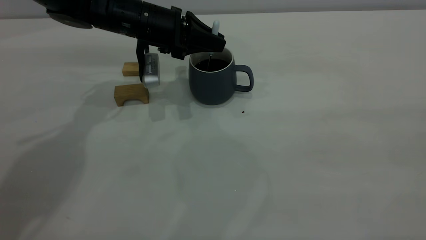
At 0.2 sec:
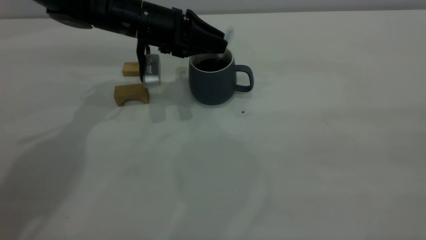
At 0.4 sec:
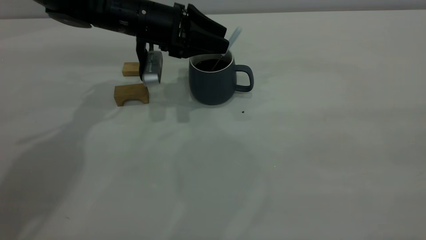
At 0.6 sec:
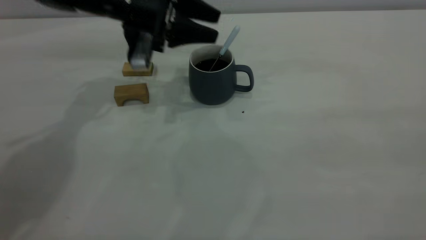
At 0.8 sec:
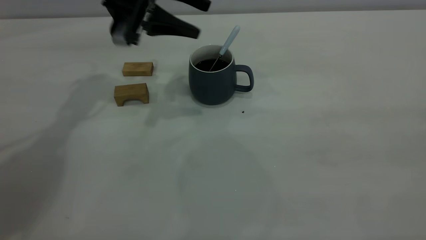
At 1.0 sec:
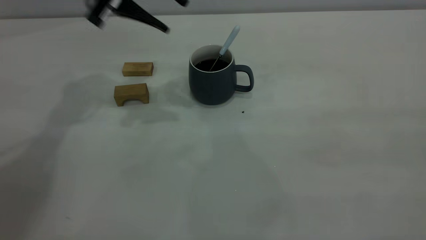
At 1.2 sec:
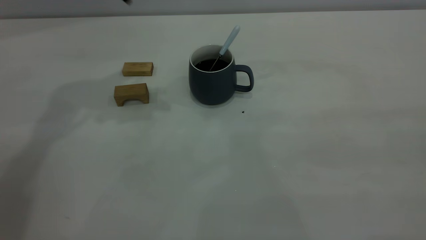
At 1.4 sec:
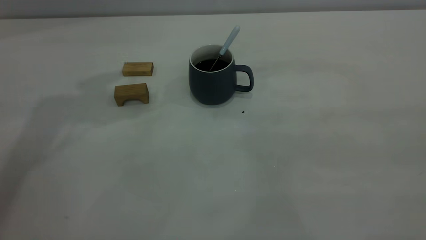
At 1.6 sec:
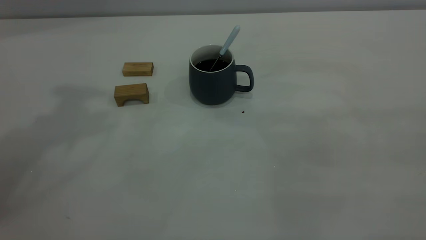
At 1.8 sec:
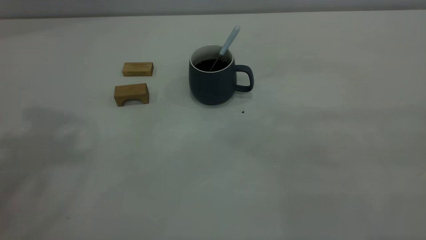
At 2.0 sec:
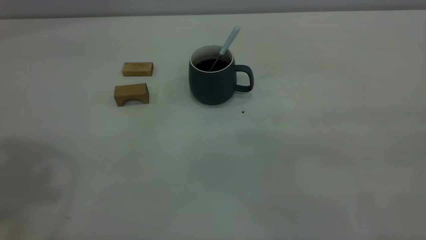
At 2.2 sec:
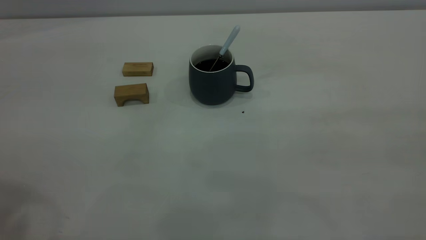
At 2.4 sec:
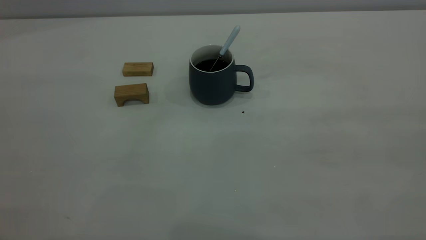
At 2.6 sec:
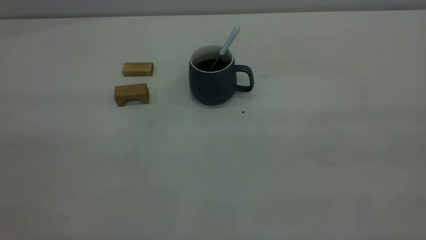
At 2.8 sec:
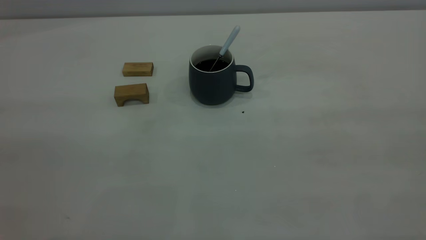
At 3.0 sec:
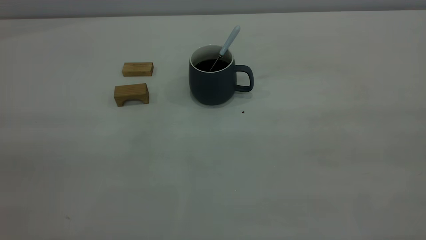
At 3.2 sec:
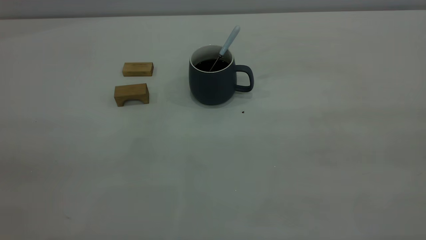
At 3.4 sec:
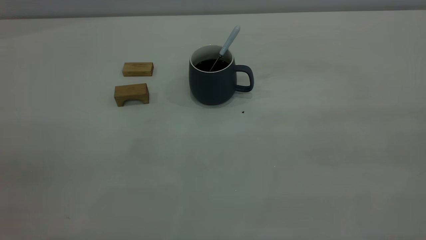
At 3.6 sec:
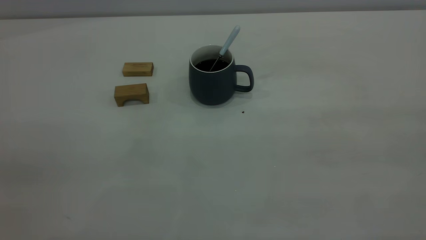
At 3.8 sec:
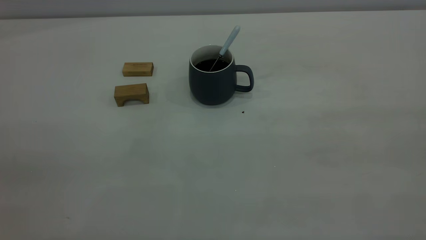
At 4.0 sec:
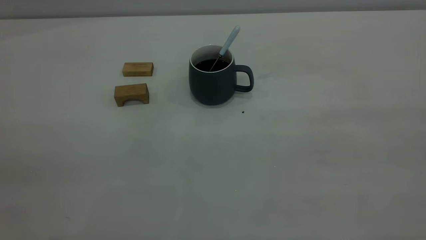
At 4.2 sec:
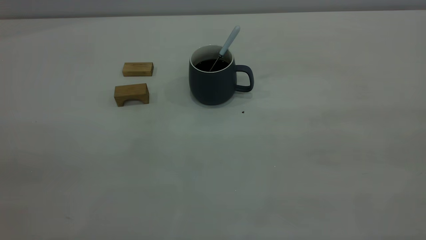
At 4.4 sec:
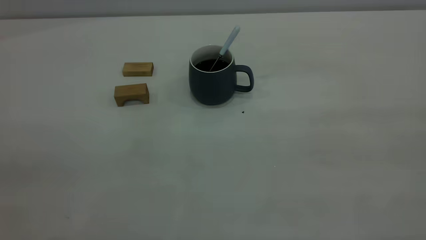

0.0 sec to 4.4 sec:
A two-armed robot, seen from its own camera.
0.0 sec to 1.4 sec: The left gripper shifts approximately 30 cm upward, and opens.

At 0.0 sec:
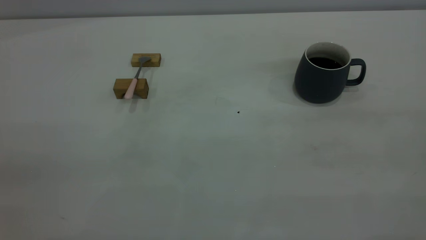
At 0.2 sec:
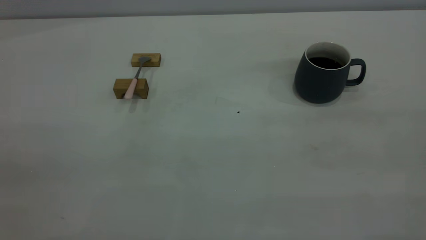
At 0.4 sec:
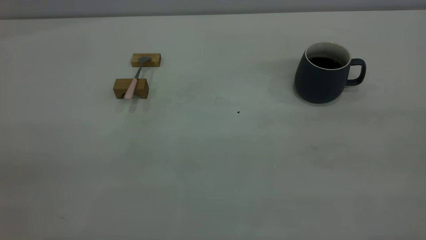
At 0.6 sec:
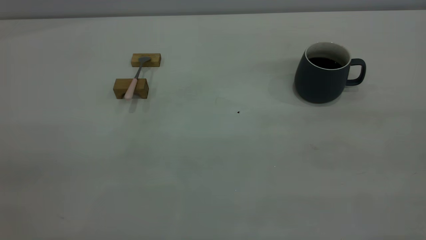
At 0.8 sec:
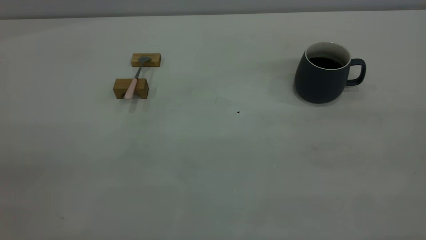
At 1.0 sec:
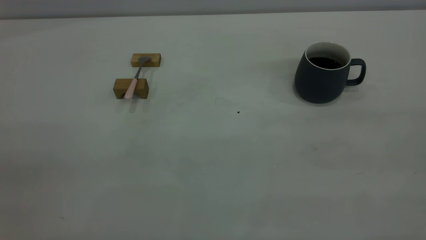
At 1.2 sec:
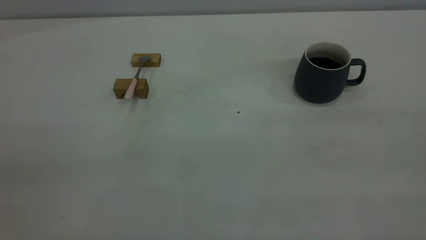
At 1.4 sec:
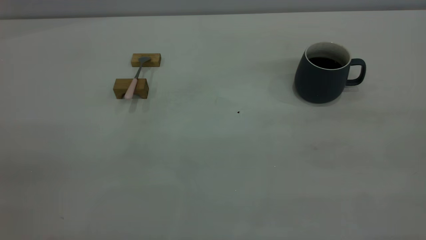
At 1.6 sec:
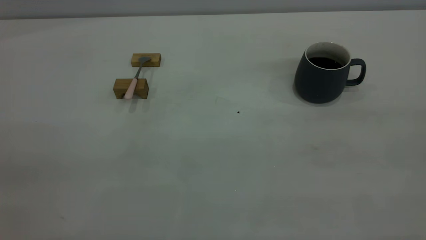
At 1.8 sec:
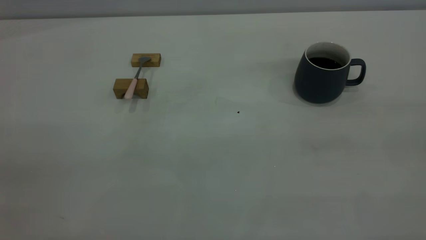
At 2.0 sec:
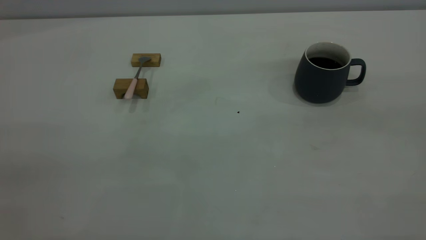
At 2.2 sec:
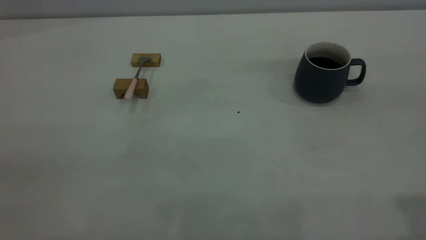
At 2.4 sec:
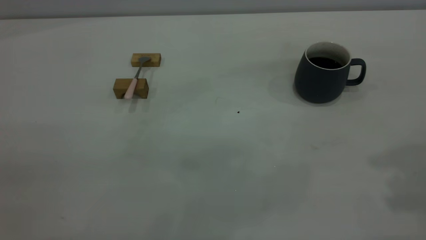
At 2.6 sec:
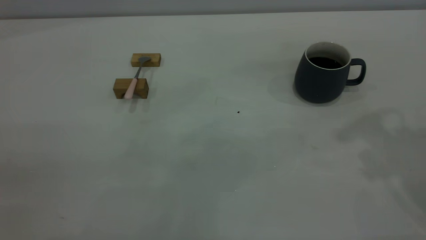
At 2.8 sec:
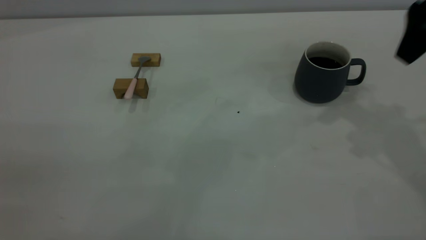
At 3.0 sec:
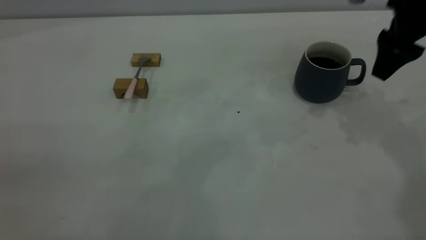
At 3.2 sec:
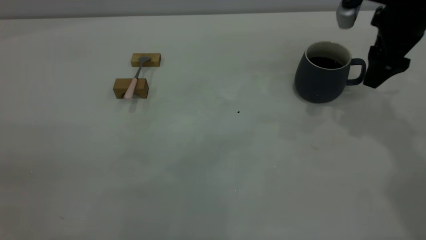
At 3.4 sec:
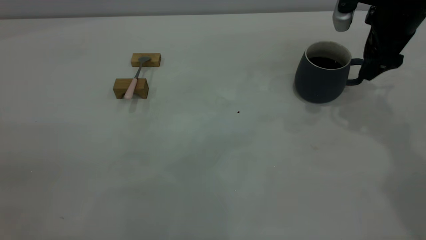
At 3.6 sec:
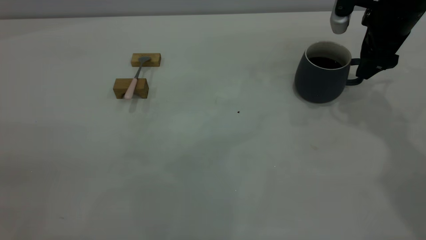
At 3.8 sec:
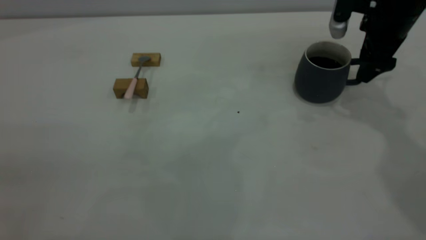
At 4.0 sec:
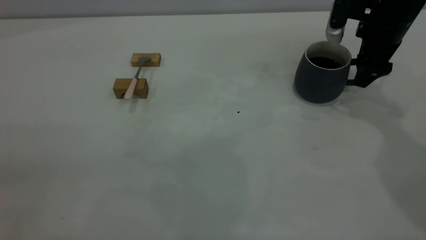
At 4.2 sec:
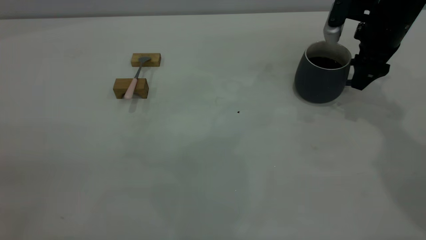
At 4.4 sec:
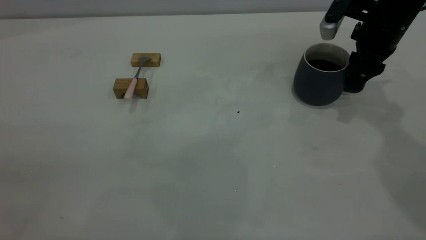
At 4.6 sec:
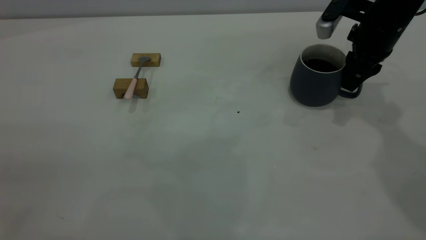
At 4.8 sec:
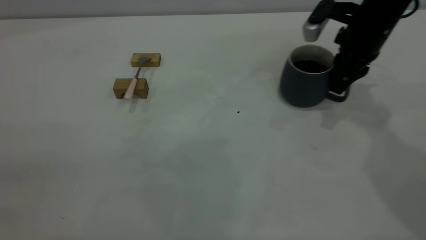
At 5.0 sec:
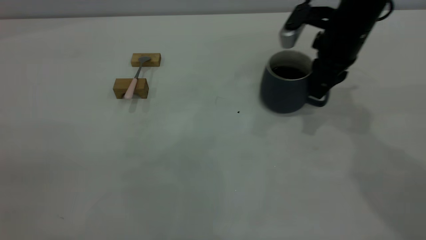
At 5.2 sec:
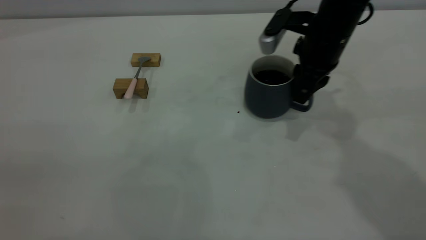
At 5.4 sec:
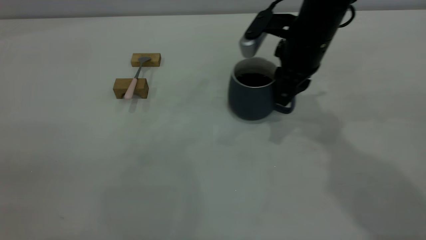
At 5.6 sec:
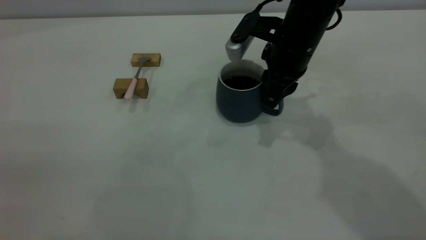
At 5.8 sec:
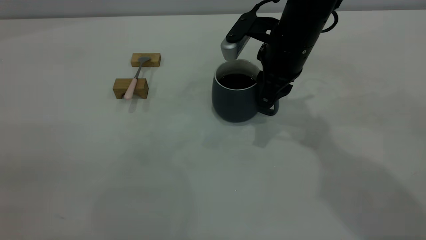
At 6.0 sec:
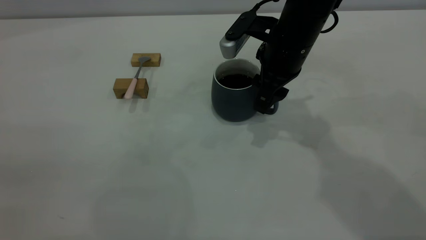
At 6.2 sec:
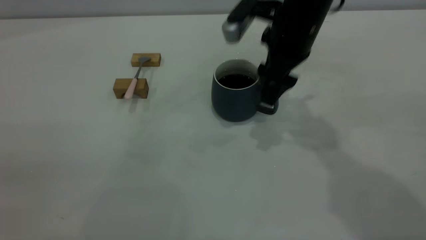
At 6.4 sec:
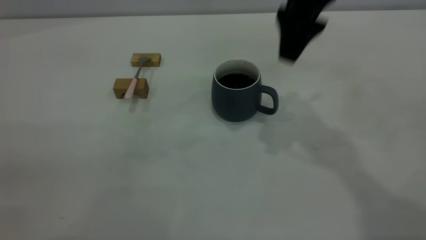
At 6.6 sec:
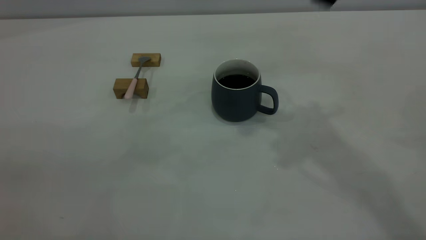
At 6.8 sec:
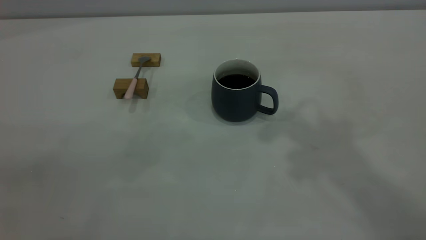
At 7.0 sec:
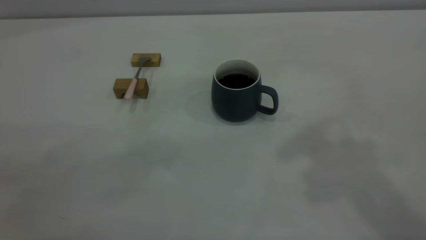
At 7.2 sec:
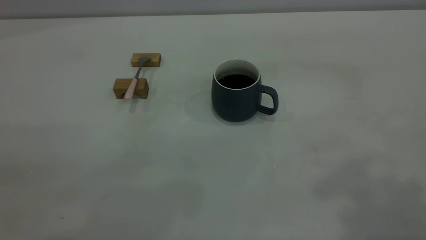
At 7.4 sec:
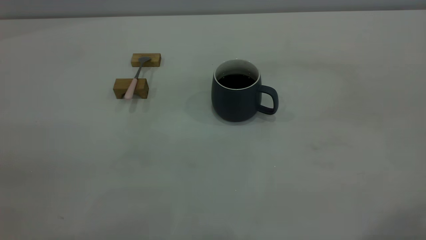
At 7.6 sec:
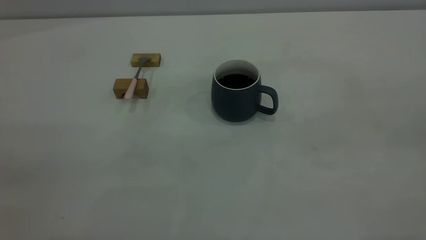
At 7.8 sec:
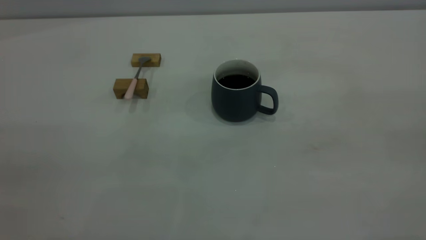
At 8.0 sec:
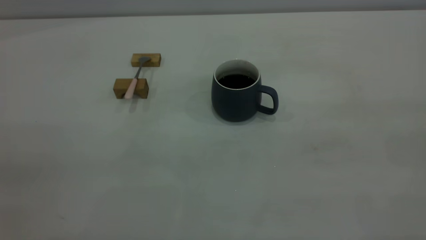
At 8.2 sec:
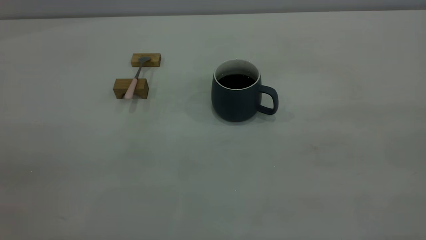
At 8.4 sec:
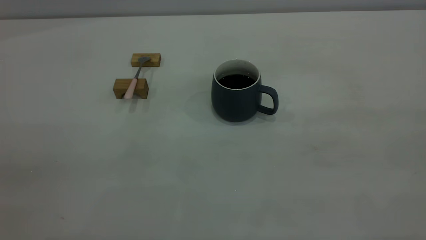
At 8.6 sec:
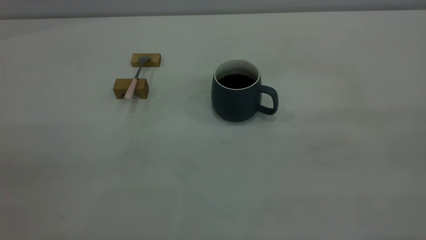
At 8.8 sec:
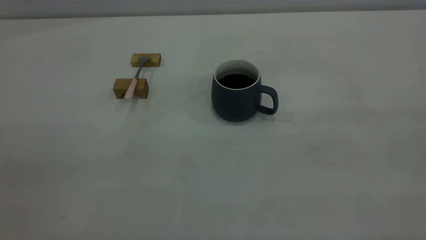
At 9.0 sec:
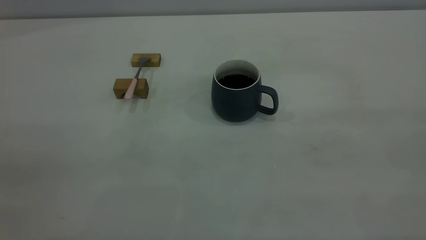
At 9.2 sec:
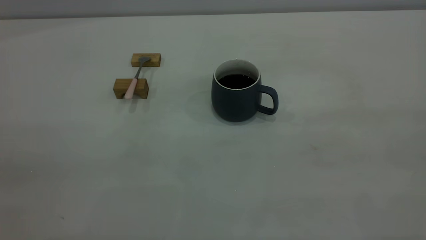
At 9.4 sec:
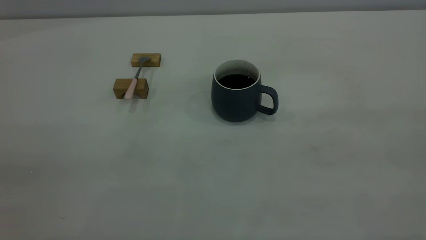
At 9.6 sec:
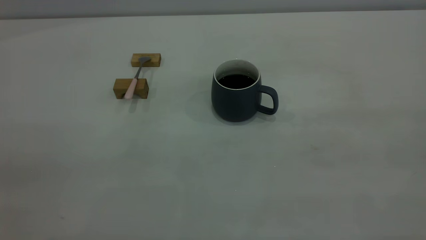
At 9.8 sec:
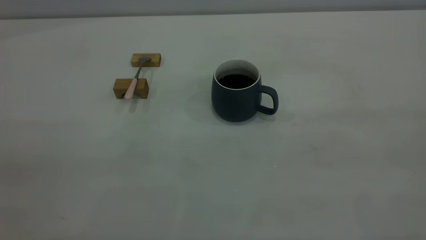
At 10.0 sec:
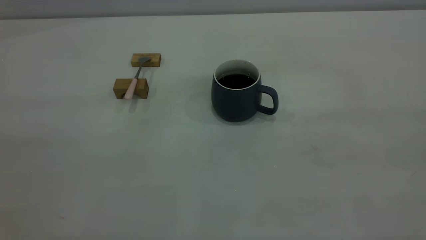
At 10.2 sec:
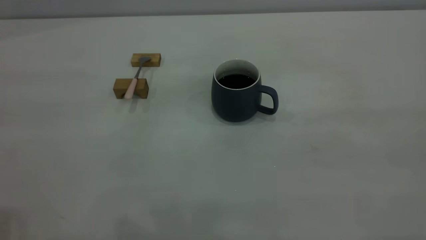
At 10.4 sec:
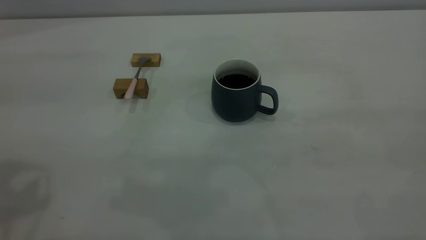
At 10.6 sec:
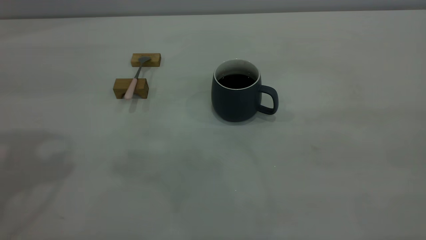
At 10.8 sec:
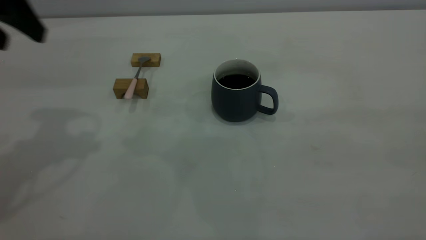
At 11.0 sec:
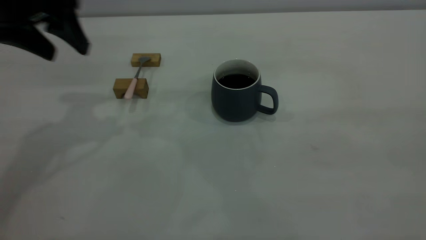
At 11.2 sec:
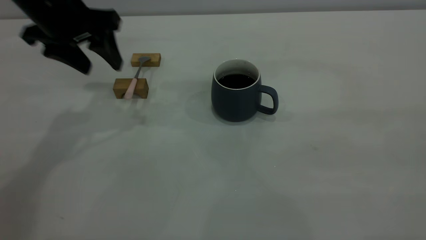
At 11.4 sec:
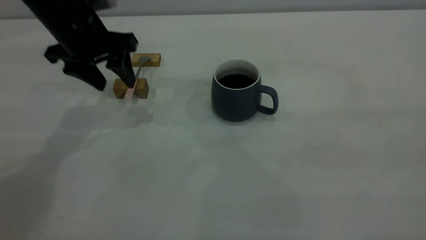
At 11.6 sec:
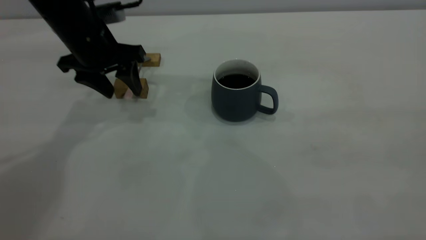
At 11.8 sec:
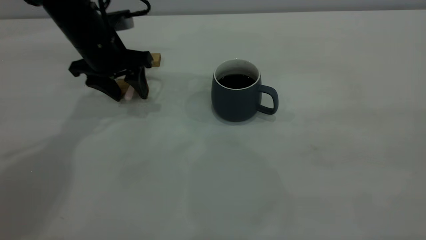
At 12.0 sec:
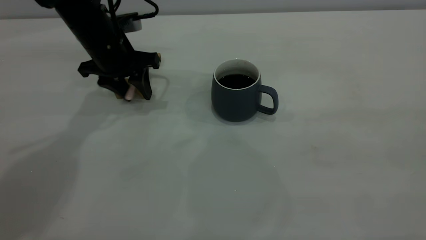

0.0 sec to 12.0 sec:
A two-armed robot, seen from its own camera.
Step, 0.0 sec to 6.2 sec: Move the cup with coffee to the center of view.
0.0 sec to 1.6 sec: Both grippers stay put.
1.6 sec to 3.0 sec: The right gripper goes approximately 40 cm forward and downward, and opens its fingers.
3.0 sec to 4.4 sec: The right gripper goes approximately 10 cm downward and forward, and closes its fingers.
4.4 sec to 6.0 sec: The right gripper shifts some 15 cm to the left, and opens its fingers.
6.0 sec to 7.6 sec: The right gripper is displaced backward, upward and to the right by about 50 cm.
10.4 sec to 12.0 sec: The left gripper shifts roughly 35 cm downward, forward and to the right, and closes up.
